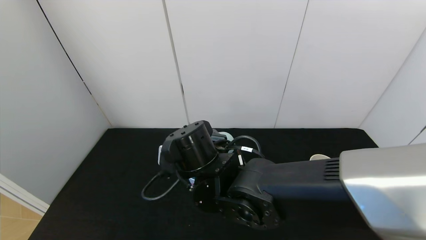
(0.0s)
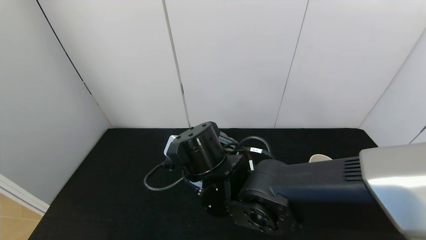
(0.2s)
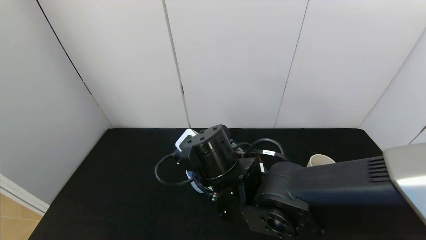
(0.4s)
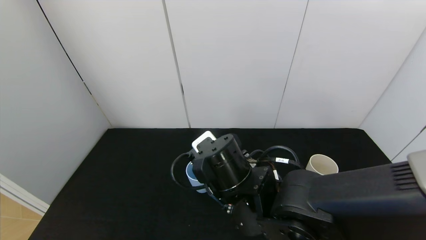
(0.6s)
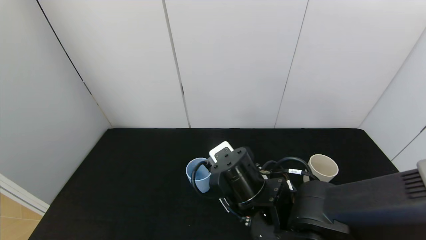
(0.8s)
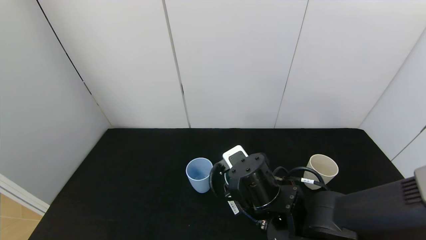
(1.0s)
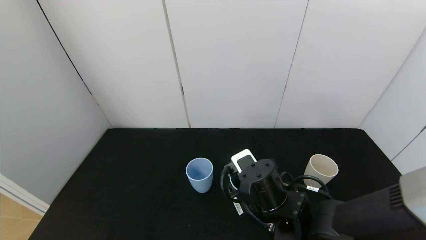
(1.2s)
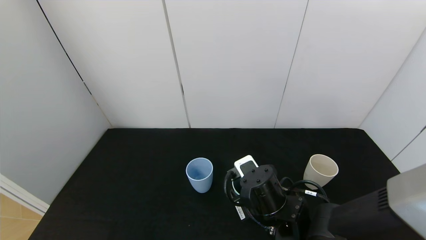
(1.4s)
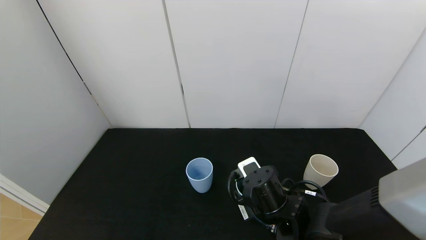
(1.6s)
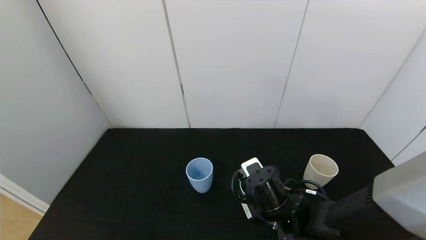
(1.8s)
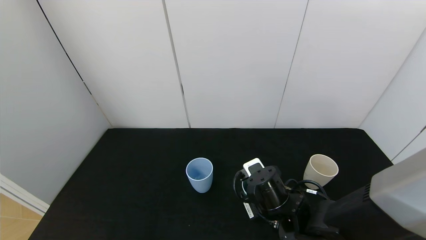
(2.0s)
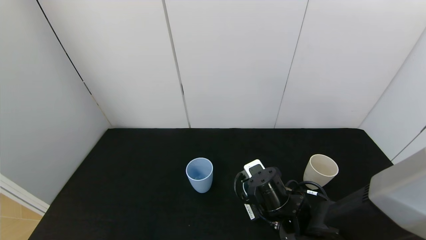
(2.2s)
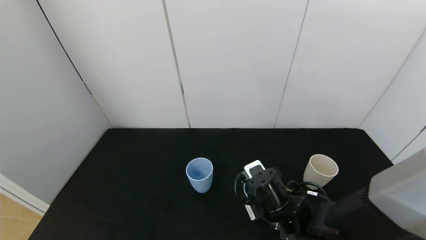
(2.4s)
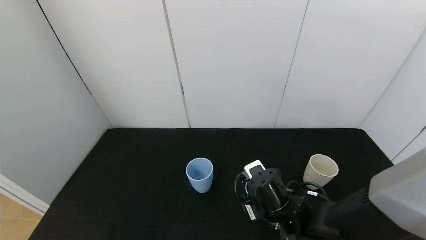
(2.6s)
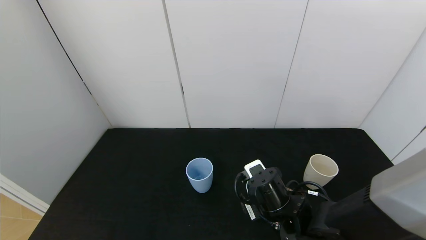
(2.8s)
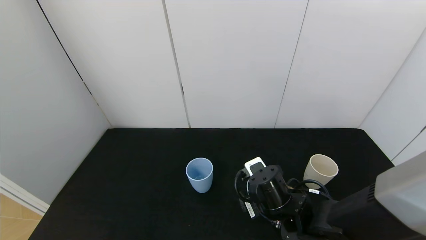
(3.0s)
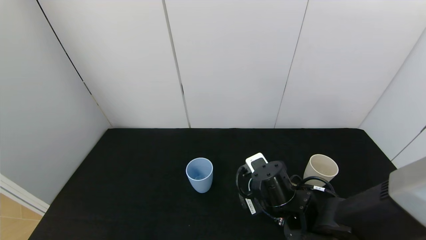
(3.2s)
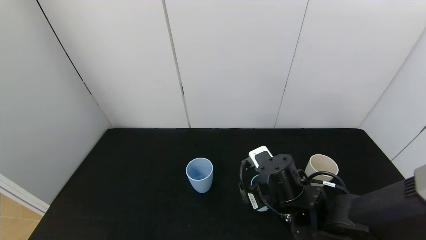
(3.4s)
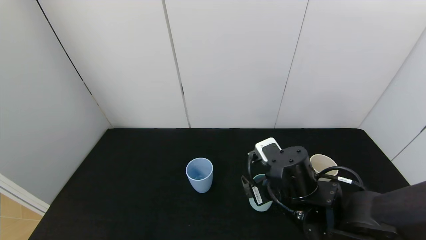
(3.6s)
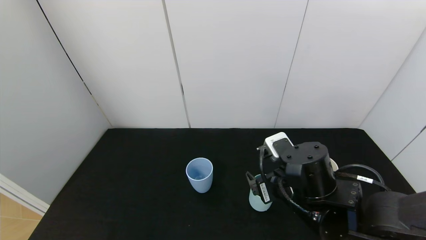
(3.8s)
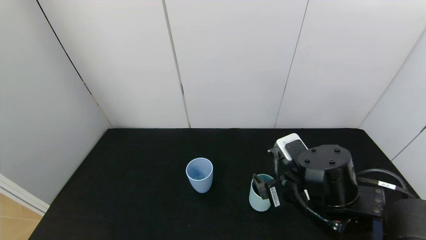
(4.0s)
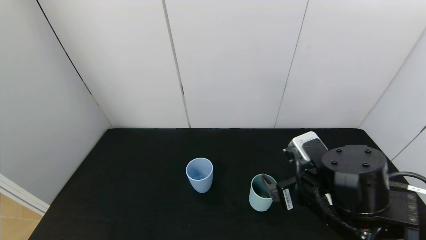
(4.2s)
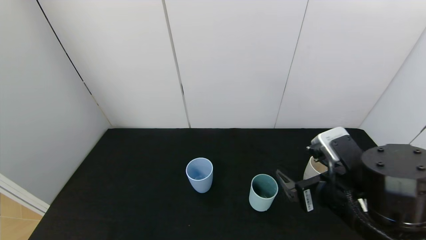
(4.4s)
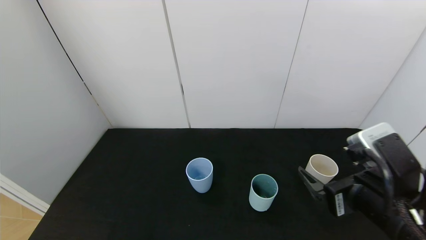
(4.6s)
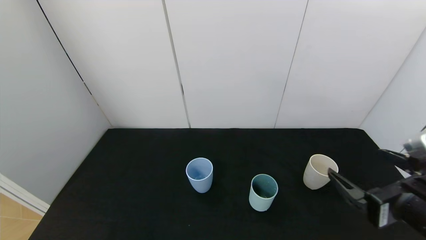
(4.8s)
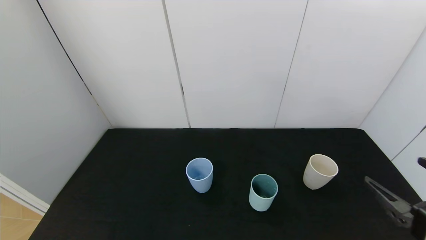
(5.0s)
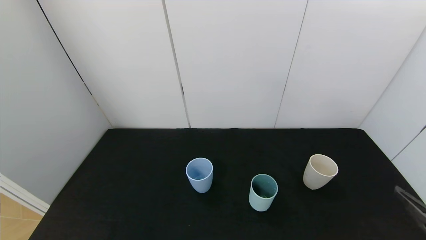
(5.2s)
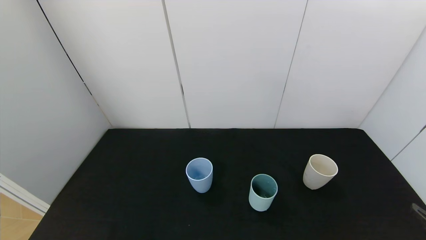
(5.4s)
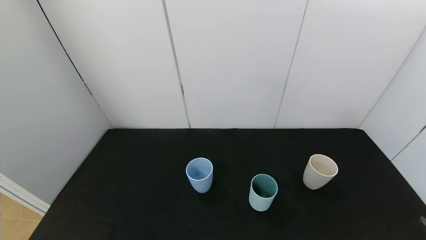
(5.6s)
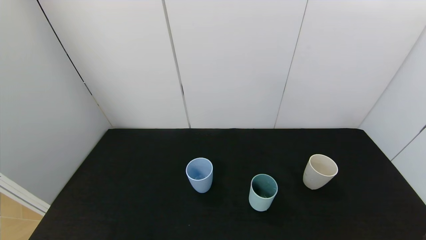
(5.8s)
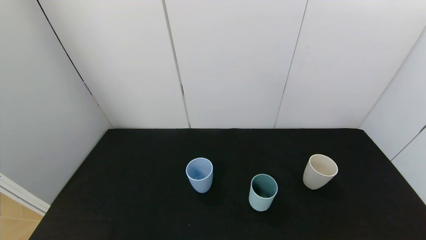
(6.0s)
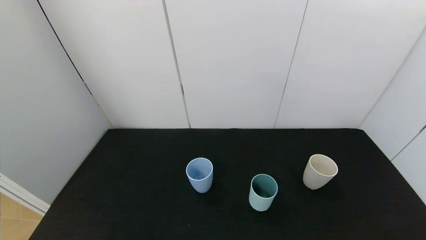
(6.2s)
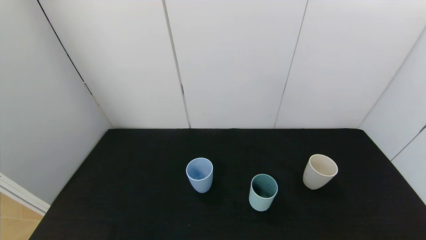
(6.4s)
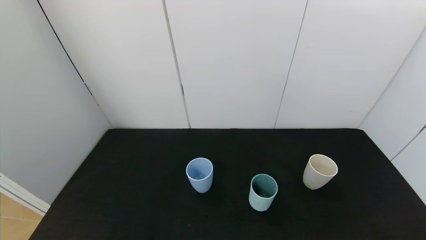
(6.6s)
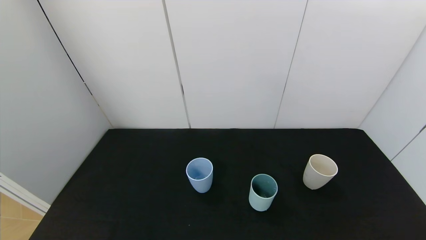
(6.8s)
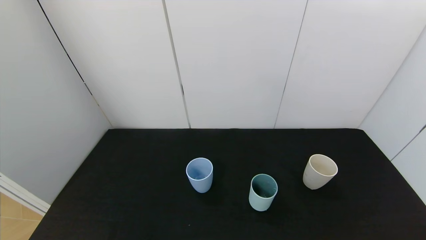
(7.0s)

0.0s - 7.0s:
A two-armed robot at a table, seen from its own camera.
Task of the whole recording: use the gripper to pour the water into the other two cups on black table.
Step, 0.0s - 3.2s: Place the green cup with the right gripper.
0.0s - 1.4s: The right gripper is displaced to the right and downward by some 15 cm.
1.4s - 2.8s: The right gripper opens.
2.8s - 4.2s: The right gripper travels upward, to the right and backward by approximately 10 cm.
4.2s - 5.6s: The right gripper goes about 25 cm to the right and backward.

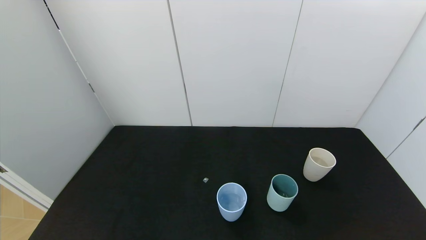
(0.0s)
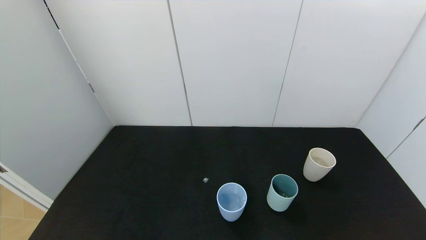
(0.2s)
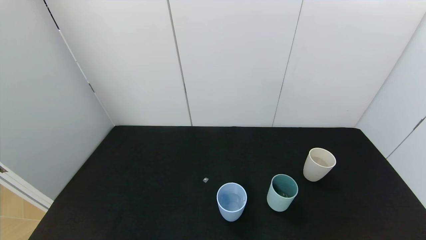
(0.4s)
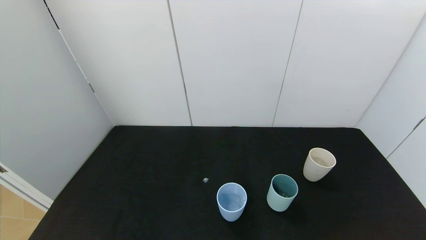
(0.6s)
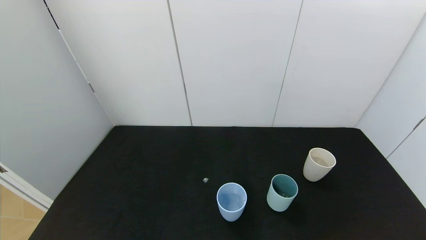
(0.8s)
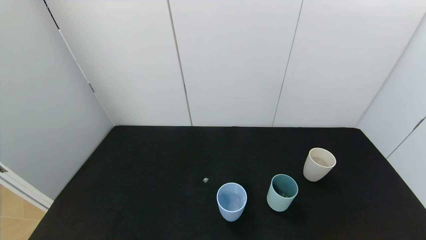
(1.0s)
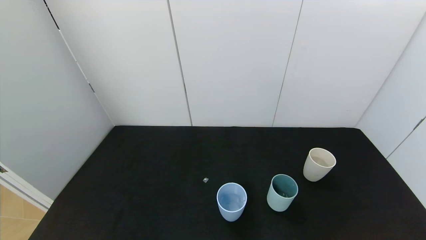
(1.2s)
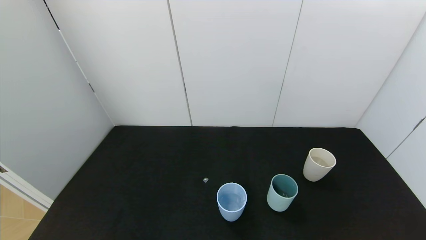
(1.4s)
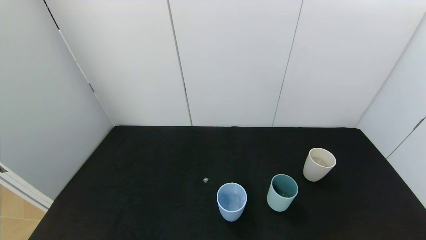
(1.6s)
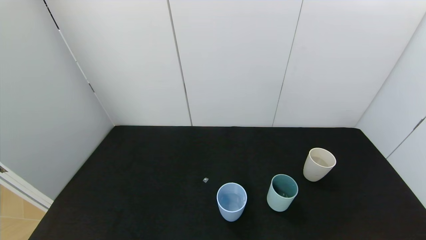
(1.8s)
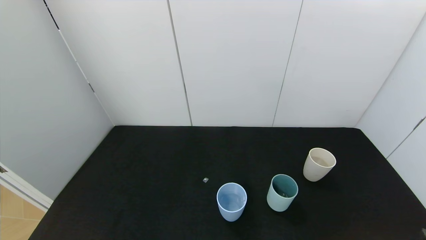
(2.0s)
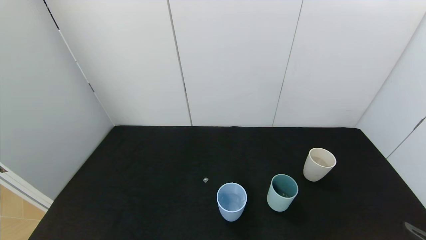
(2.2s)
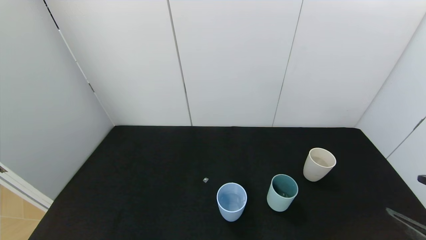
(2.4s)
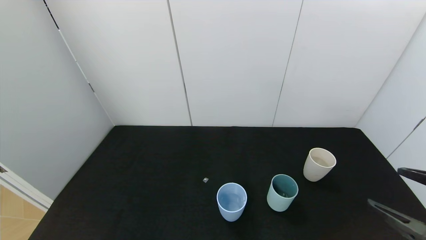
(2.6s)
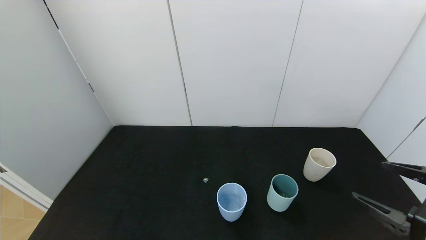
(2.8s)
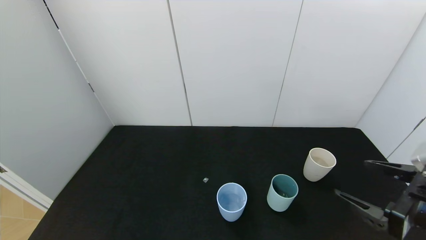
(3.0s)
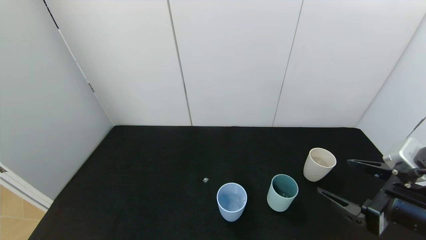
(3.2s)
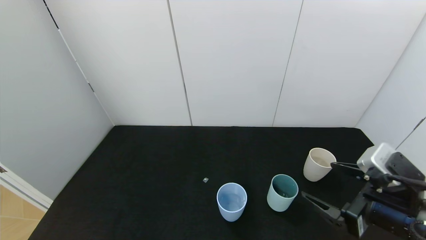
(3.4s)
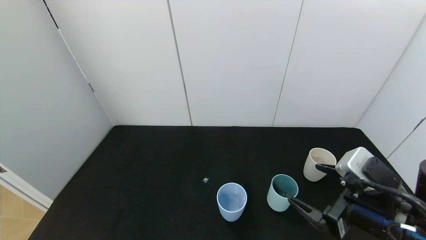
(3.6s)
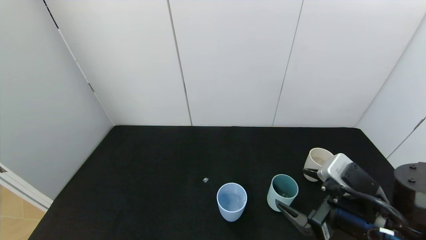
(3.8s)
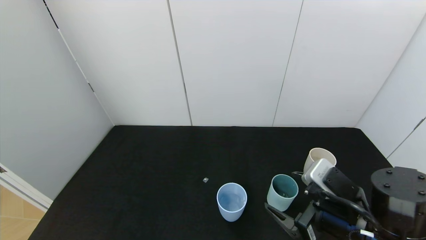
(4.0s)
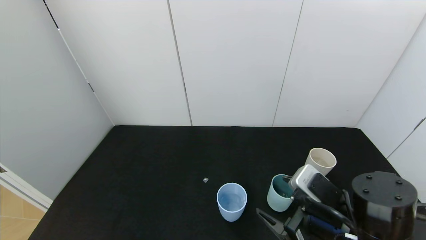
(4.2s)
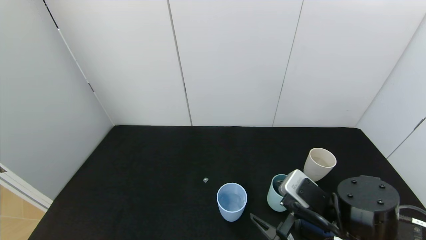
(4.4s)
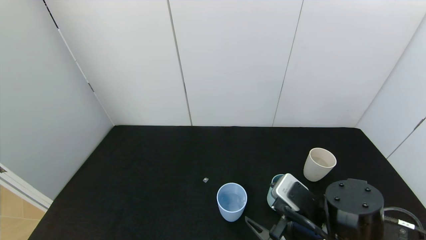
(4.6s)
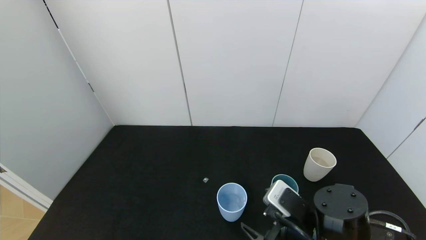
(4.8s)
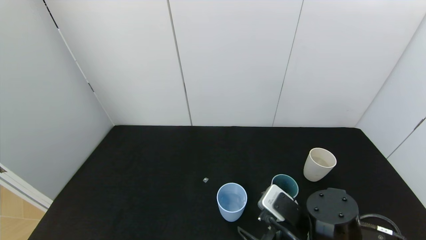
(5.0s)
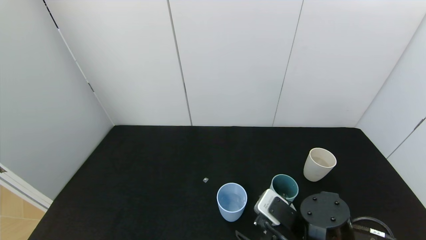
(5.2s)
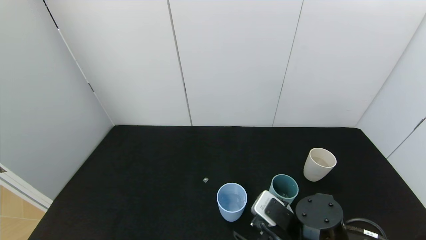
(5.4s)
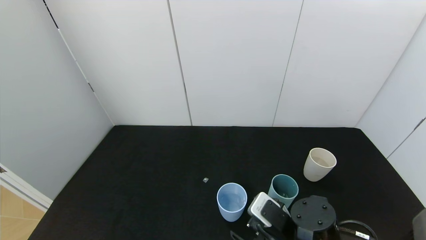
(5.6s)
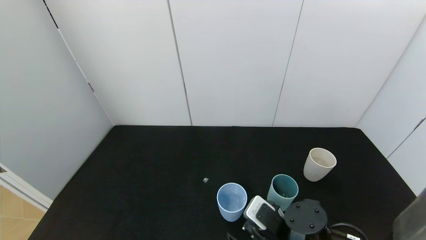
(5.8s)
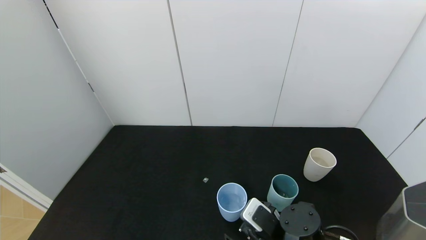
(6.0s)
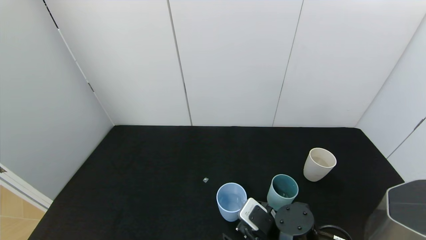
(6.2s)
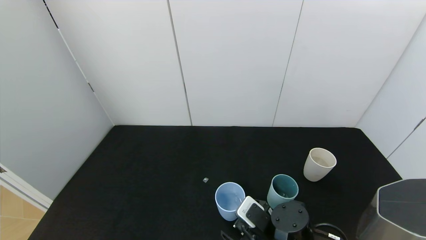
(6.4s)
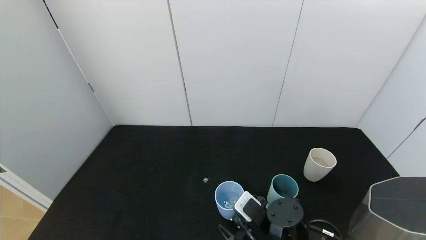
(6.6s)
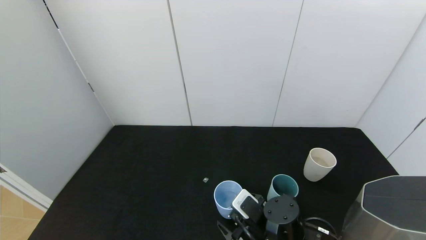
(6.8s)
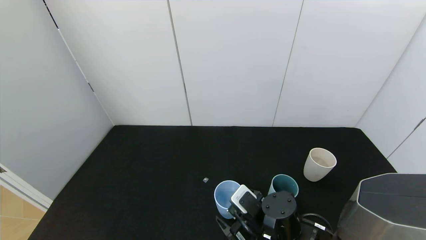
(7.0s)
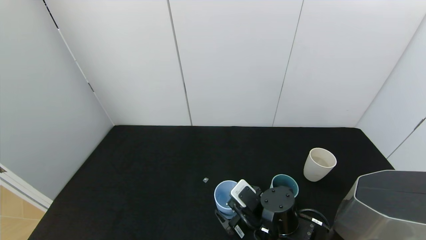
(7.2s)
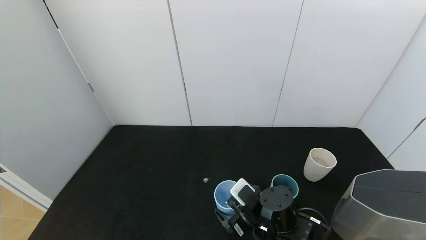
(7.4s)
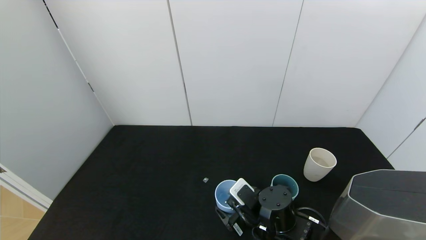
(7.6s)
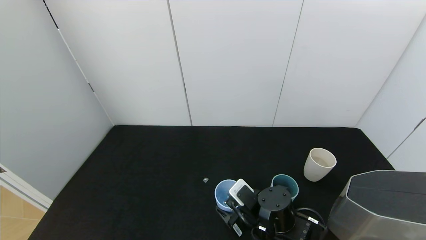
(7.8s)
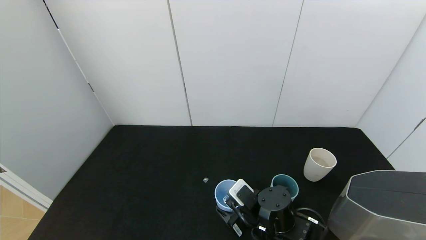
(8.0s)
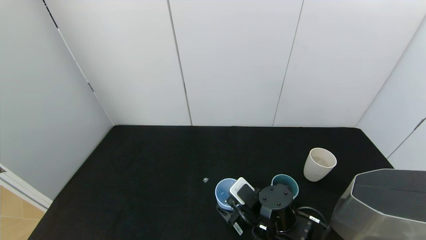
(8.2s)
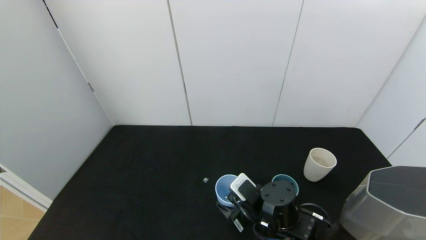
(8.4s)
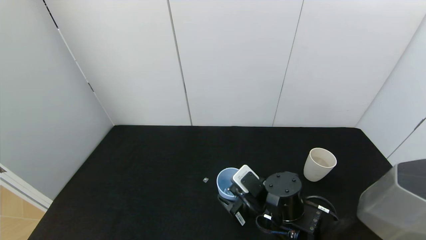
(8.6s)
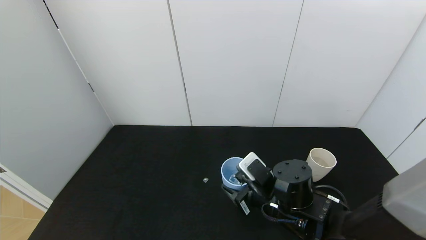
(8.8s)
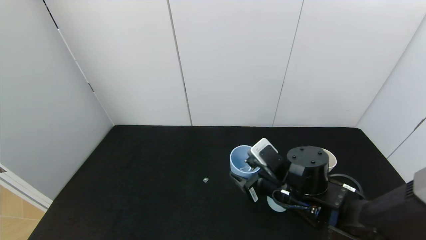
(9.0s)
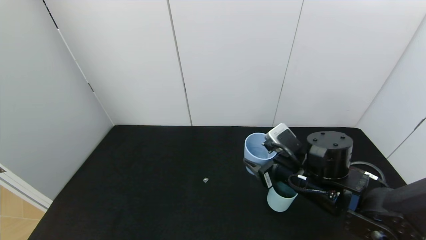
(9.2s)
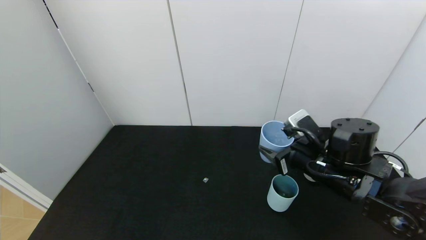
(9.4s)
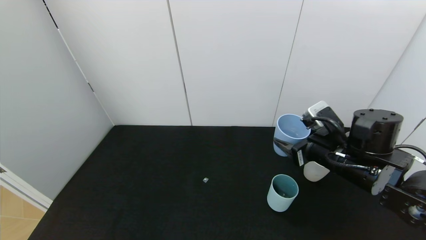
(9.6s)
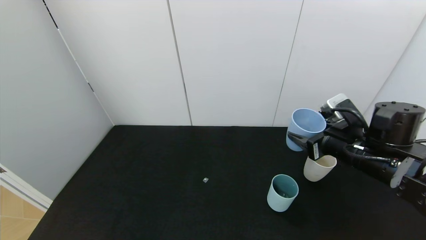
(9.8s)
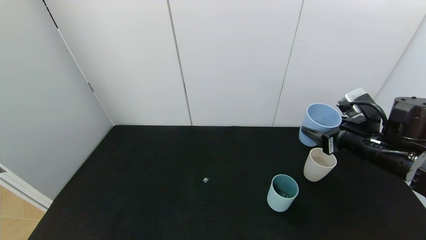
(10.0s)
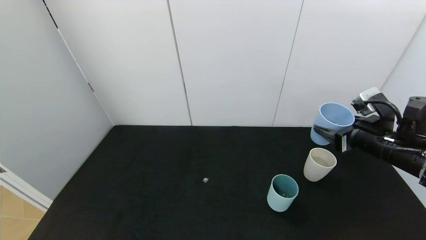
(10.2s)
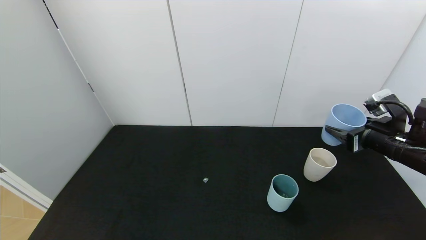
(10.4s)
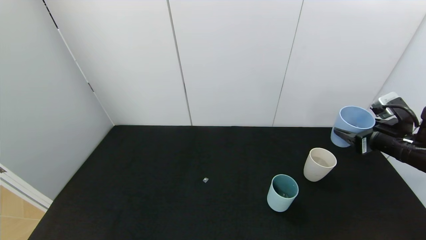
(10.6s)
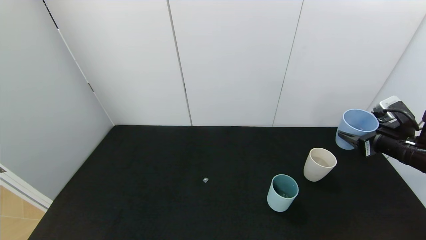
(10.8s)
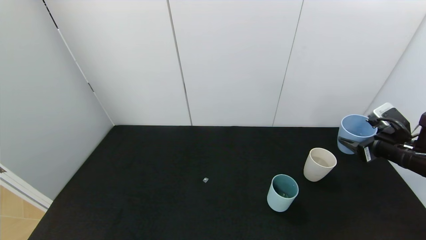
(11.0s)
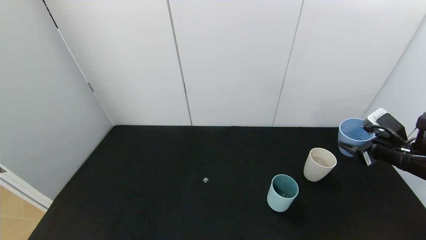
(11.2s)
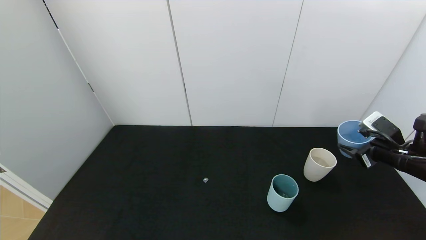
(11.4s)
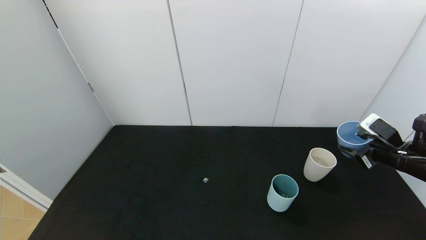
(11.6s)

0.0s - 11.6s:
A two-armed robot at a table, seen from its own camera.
Task of the whole recording: use the gripper to pour the water into the other two cups on black table.
Step, 0.0s - 7.8s: Grasp the blue cup with the right gripper.
1.4s - 2.8s: The right gripper travels forward by some 15 cm.
2.8s - 4.4s: The right gripper heads to the left and downward, covering some 15 cm.
4.4s - 5.8s: The right gripper travels downward by roughly 5 cm.
5.8s - 7.2s: The right gripper ends up about 5 cm from where it was.
7.2s - 8.8s: The right gripper is displaced upward by some 5 cm, and closes its fingers.
8.8s - 10.2s: The right gripper shifts approximately 25 cm to the right and upward.
10.2s - 11.6s: The right gripper shifts approximately 5 cm to the right.
